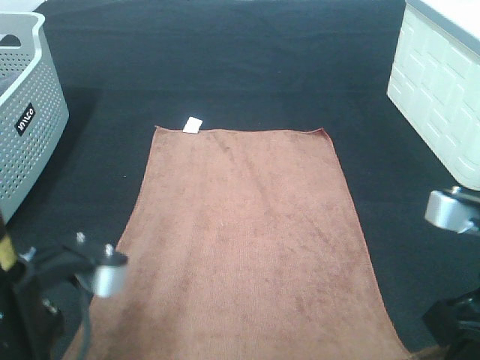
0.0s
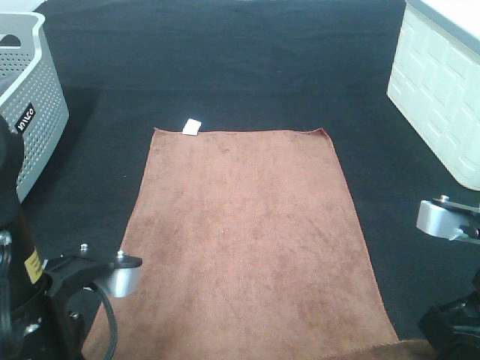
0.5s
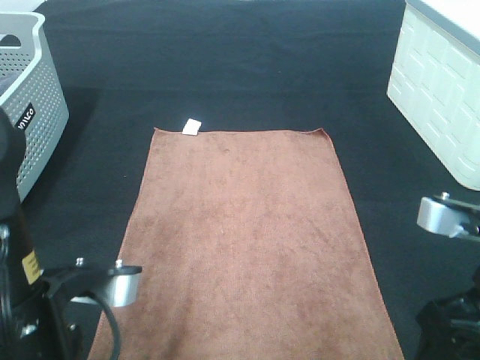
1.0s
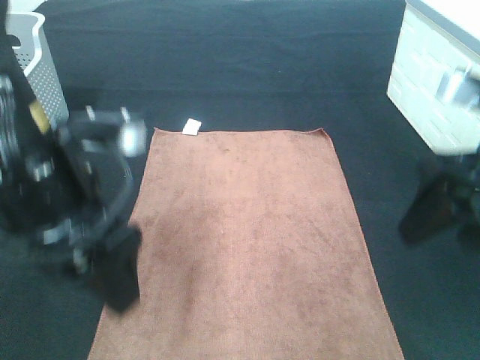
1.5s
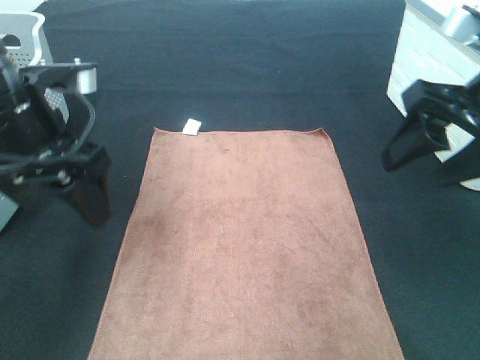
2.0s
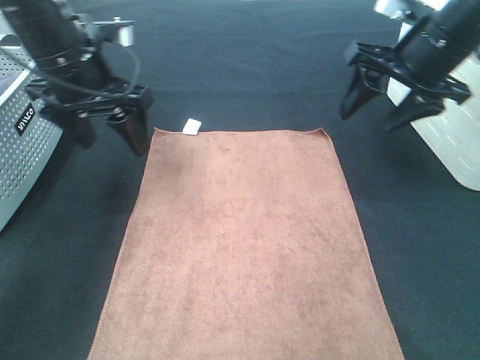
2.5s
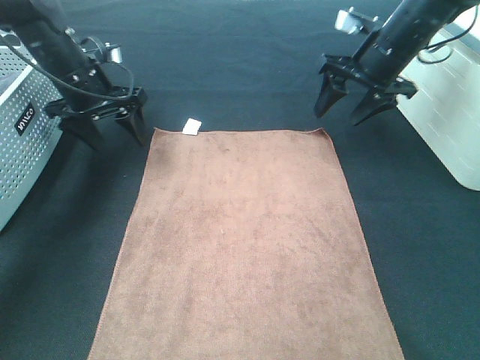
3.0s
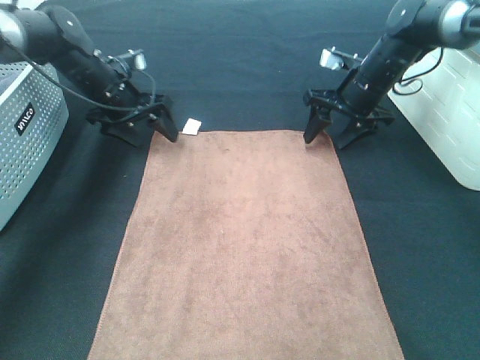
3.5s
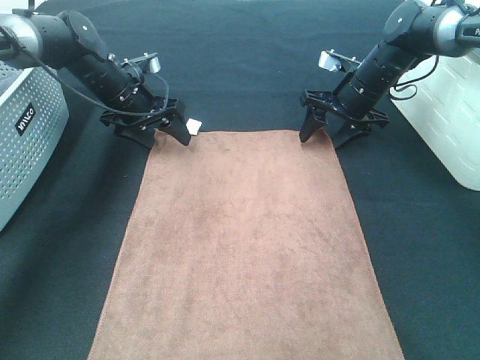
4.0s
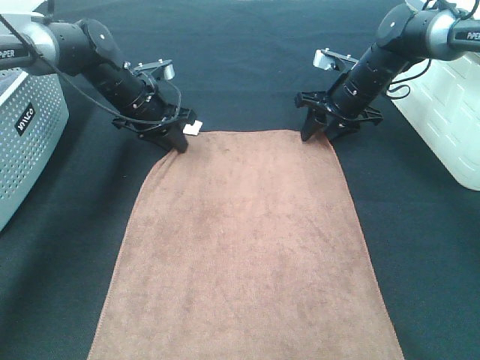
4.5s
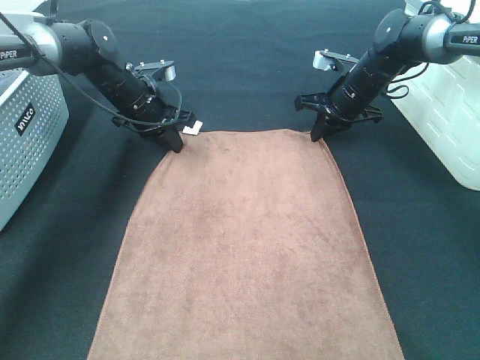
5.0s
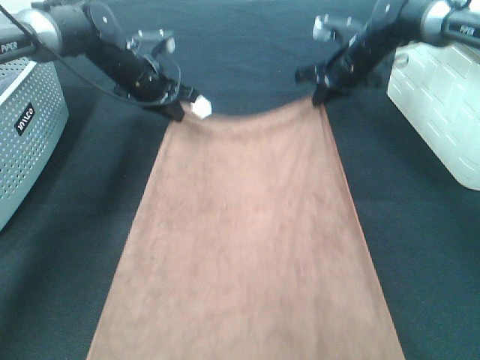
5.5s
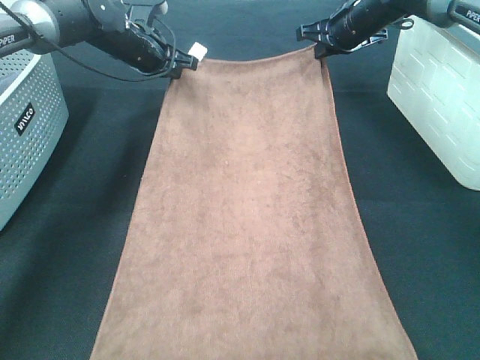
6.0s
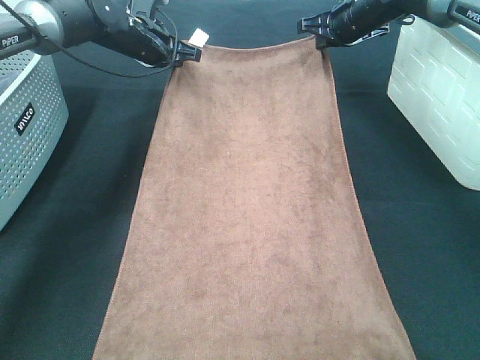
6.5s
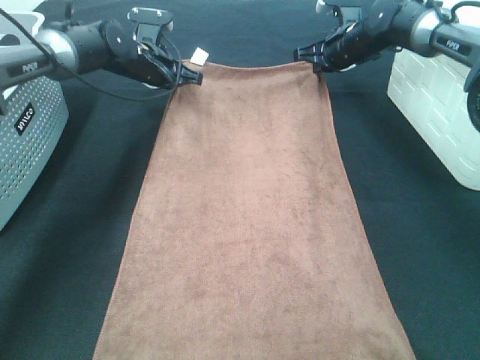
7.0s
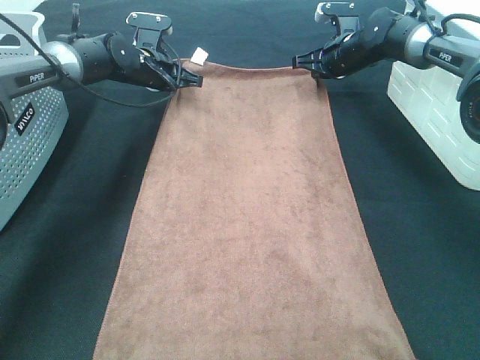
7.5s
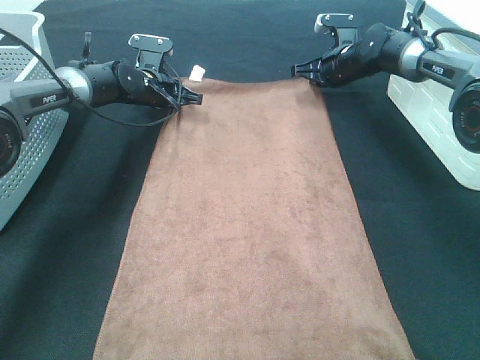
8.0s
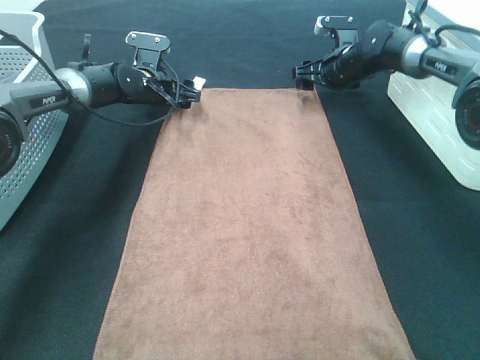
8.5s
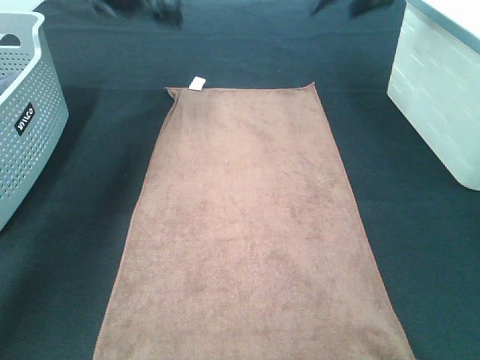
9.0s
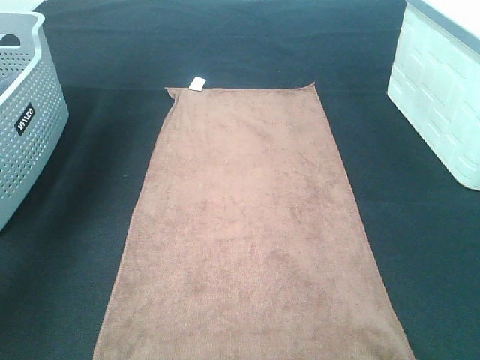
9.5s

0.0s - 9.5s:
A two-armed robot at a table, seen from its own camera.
Task of the whole recording: Remove the towel and place it.
Step, 0.0s - 3.0s: Left hand:adjust the brown towel.
Step, 0.0s - 3.0s: Right hand:adjust the brown towel.
0.0s - 2.0s: The right gripper moves forward and upward, roughly 15 cm, and opens up. Meanwhile the left gripper shifts roughly 15 cm forward, and opens up.
2.0s - 4.0s: Both grippers move forward and downward, about 30 cm.
4.0s - 5.5s: The left gripper closes its fingers, while the right gripper moves roughly 5 cm, and closes up.
7.5s - 9.5s: The right gripper heads upward and backward, covering roughly 35 cm, and opens its fingers. The left gripper is displaced upward, to the left and backward by some 35 cm, and opens up.

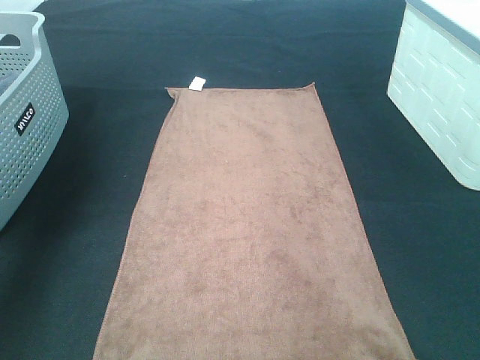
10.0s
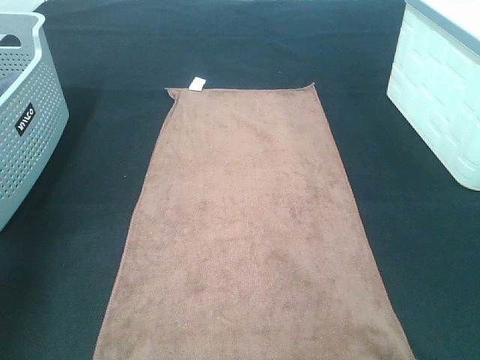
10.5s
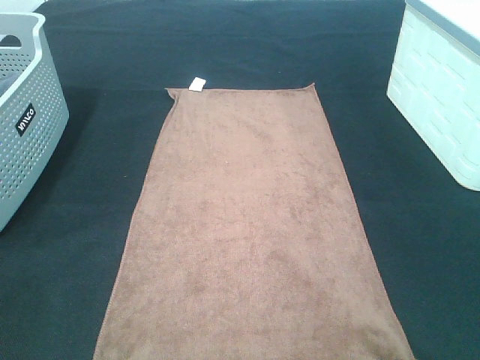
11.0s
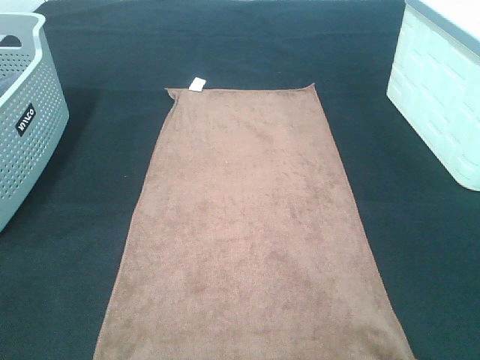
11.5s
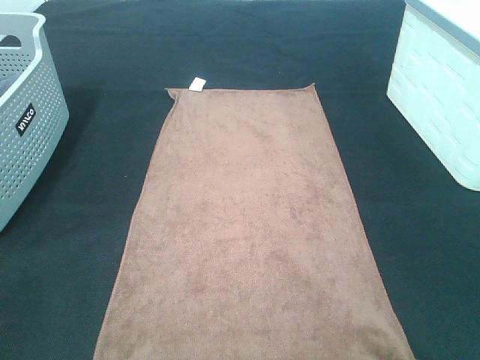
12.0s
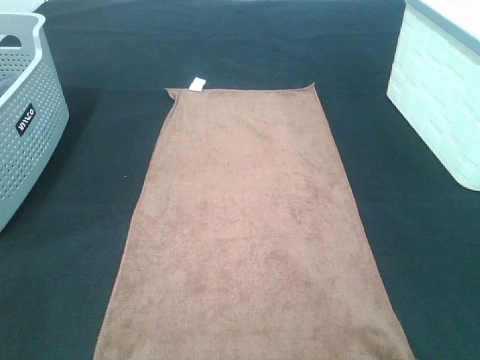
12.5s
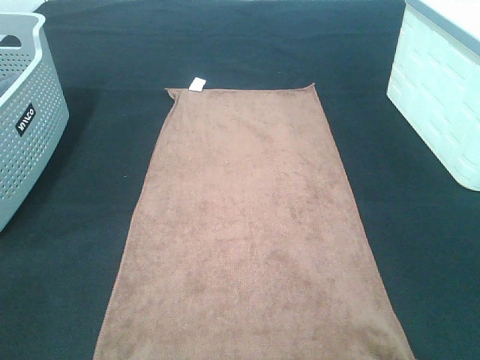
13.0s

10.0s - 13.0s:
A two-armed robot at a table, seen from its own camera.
Task of the whole recording: Remove the towel and place it.
10.0s - 11.5s: The left gripper heads backward, covering roughly 40 cm, while the right gripper is displaced backward and downward by some 35 cm.

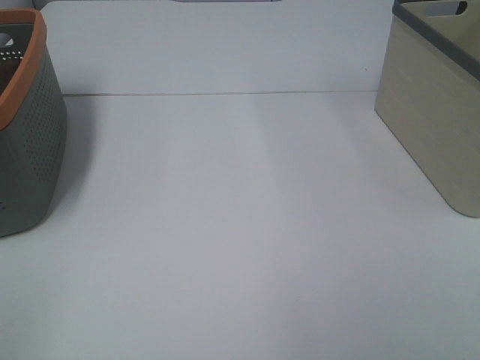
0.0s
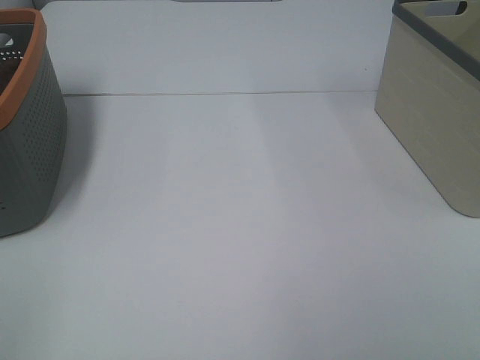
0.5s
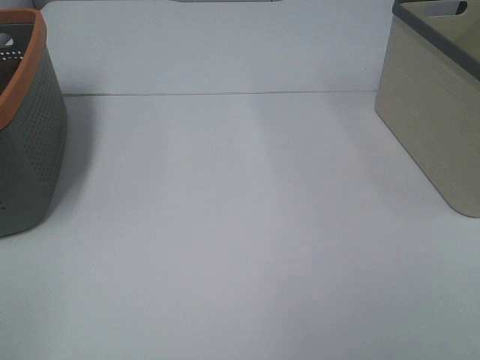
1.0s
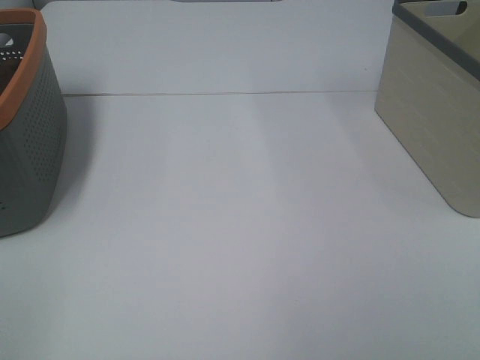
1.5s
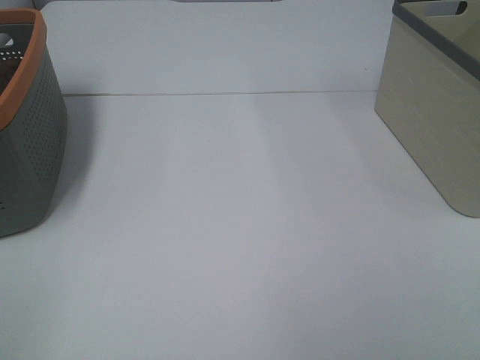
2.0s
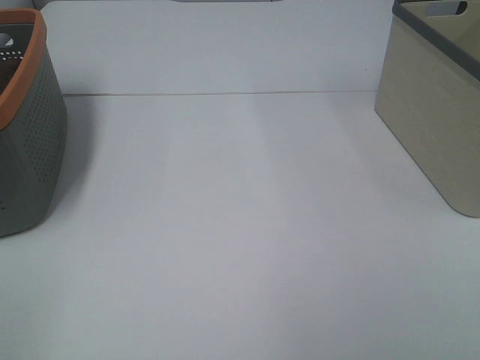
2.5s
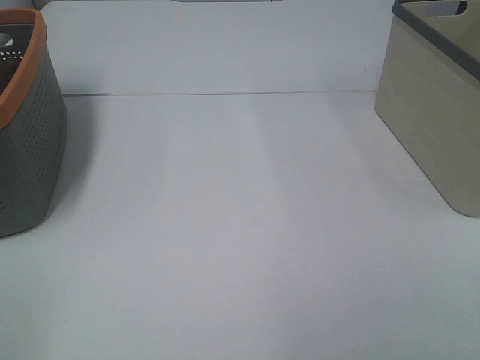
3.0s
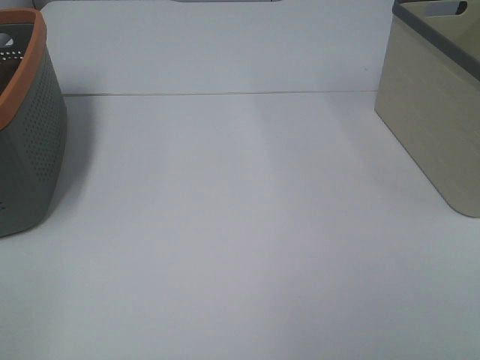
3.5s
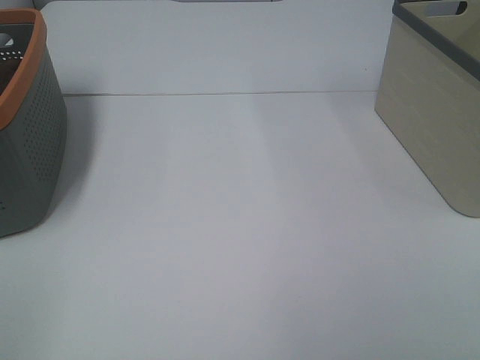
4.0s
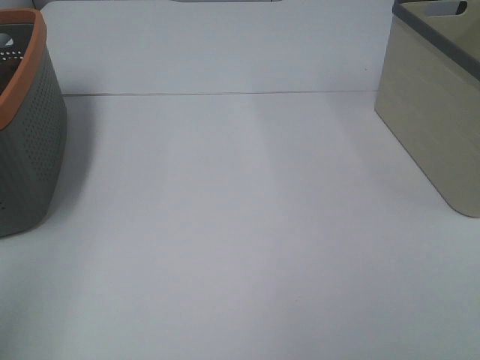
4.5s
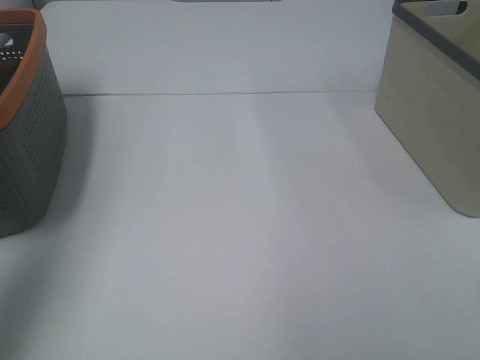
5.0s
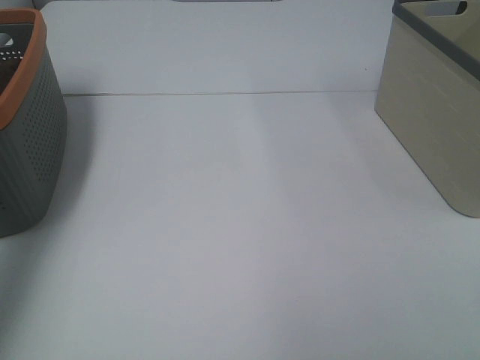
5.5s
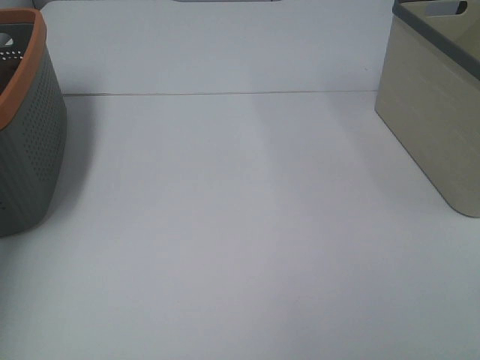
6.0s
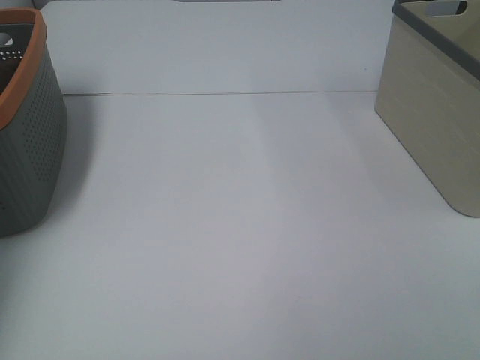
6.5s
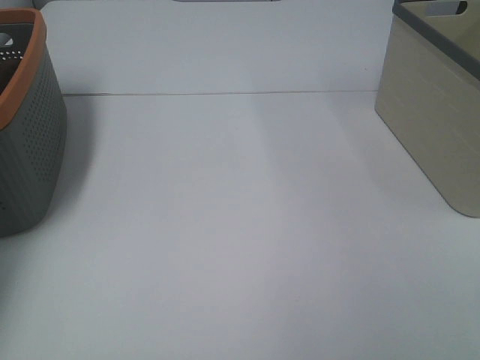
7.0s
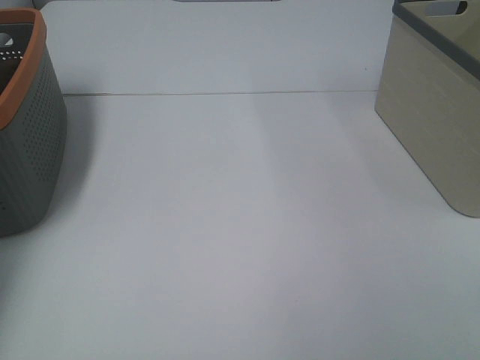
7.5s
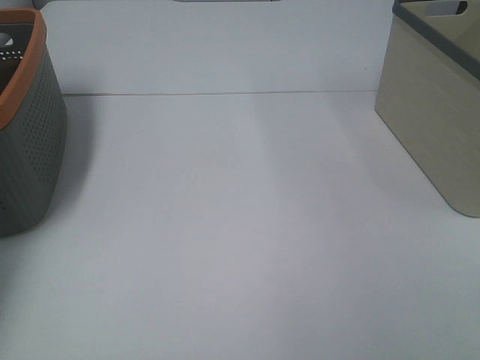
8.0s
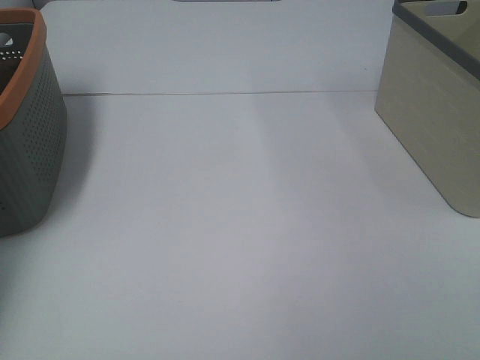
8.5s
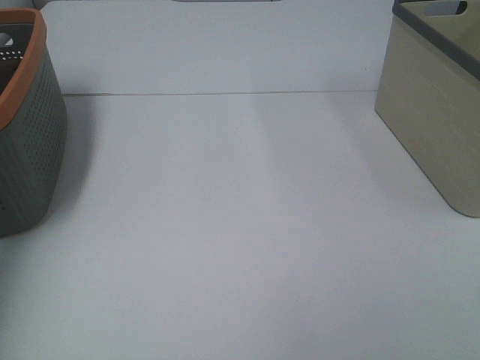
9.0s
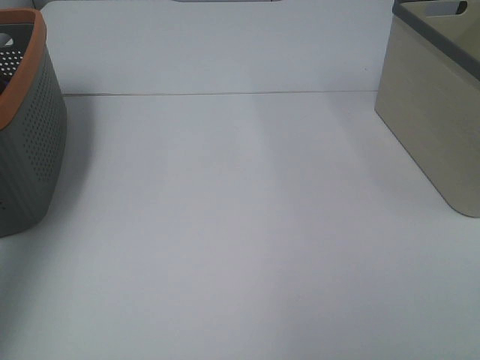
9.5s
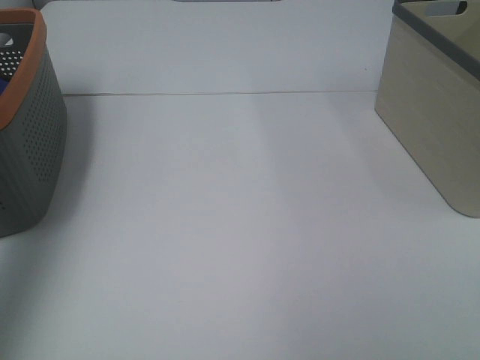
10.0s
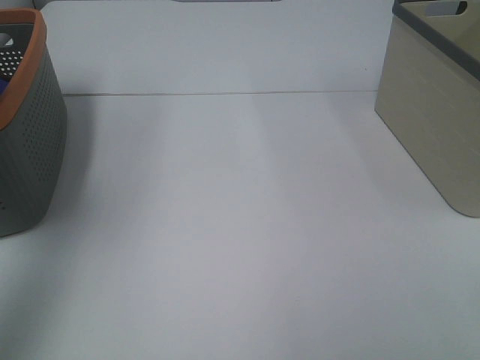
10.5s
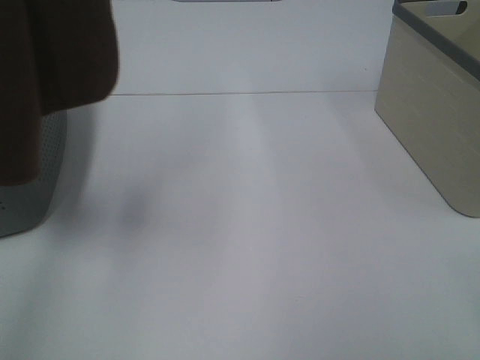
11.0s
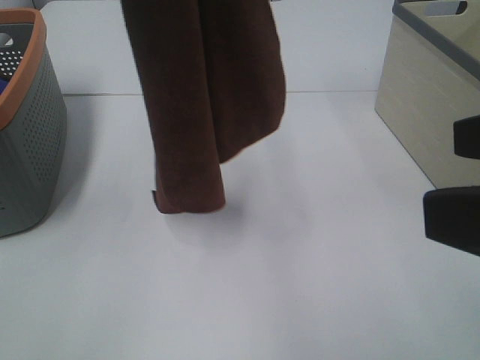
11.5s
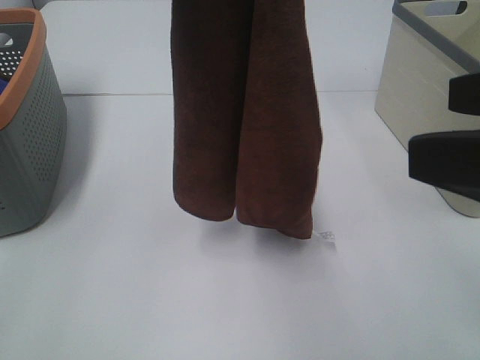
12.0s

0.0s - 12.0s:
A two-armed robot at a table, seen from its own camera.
Task of the whole recording: Remove the towel and place it.
0.0s - 4.0s: The two grippers keep their place.
4.0s - 6.0s: The left gripper heads forward, covering about 40 cm.
8.0s - 10.0s: The left gripper goes about 40 cm upward and backward.
10.0s - 12.0s: The left gripper travels to the right by approximately 25 cm. The right gripper moves forward, about 15 cm.

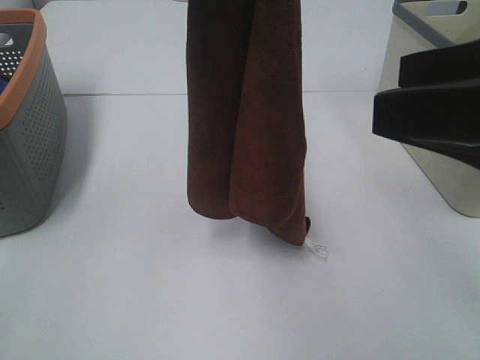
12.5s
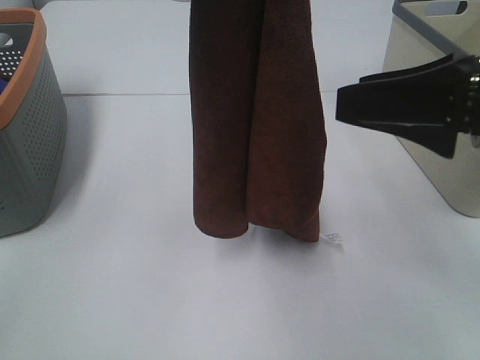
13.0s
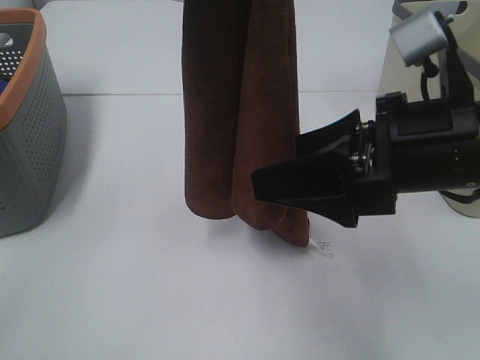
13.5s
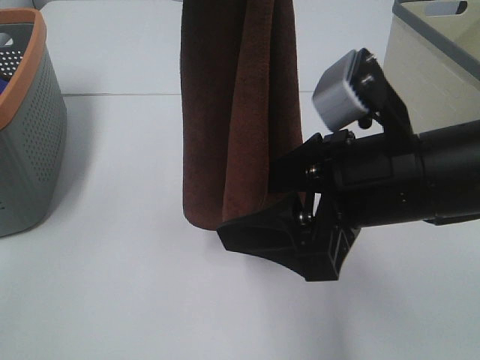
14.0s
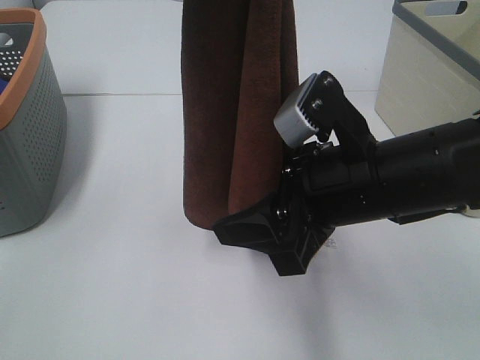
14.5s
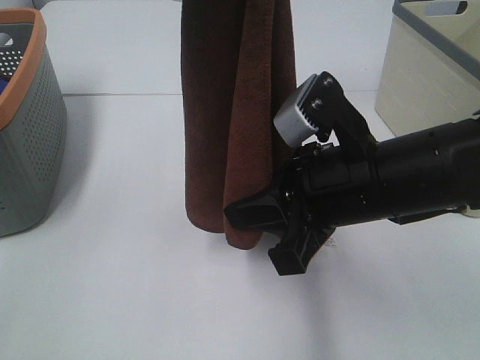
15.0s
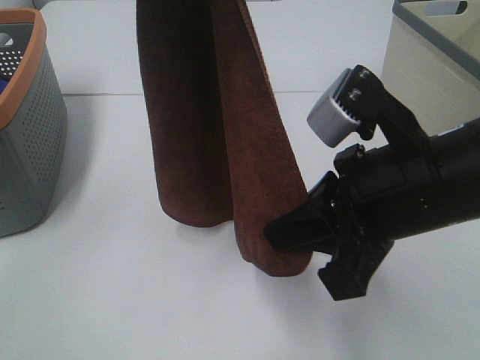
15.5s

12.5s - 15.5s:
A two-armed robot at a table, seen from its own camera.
Task of the whole recording: Remove the towel and place it.
12.5s - 14.0s: The right gripper shifts some 15 cm downward and to the left.
14.0s - 15.5s: The right gripper closes its fingers.
